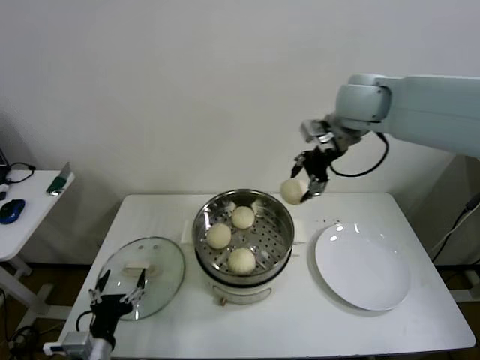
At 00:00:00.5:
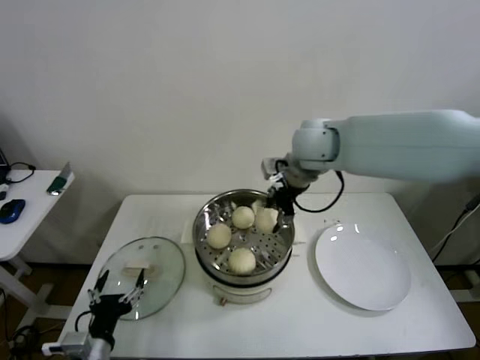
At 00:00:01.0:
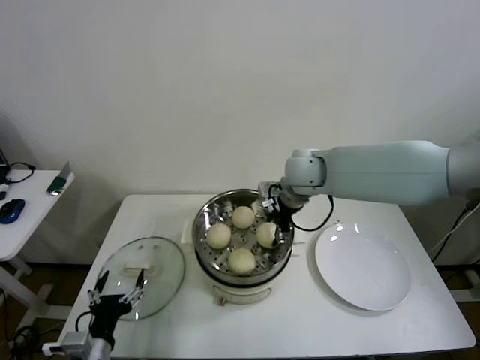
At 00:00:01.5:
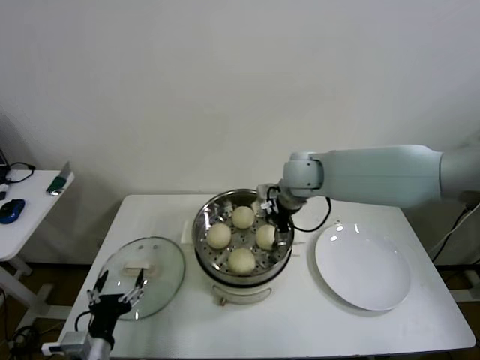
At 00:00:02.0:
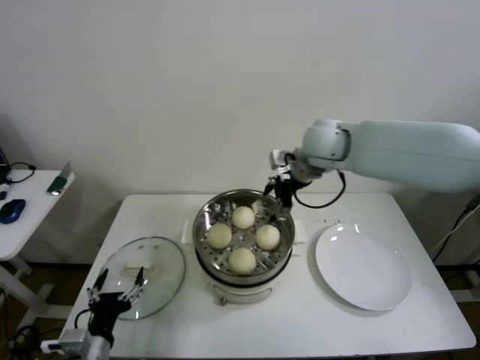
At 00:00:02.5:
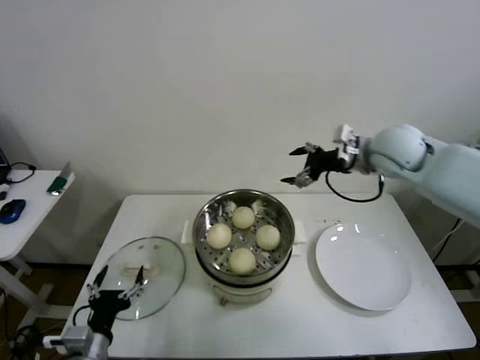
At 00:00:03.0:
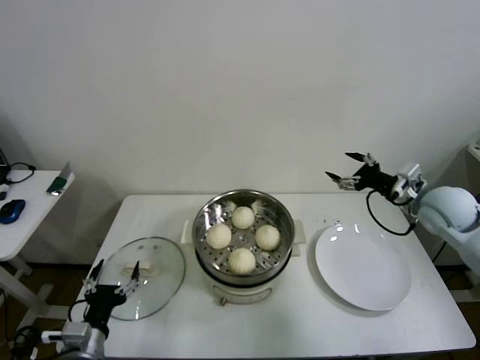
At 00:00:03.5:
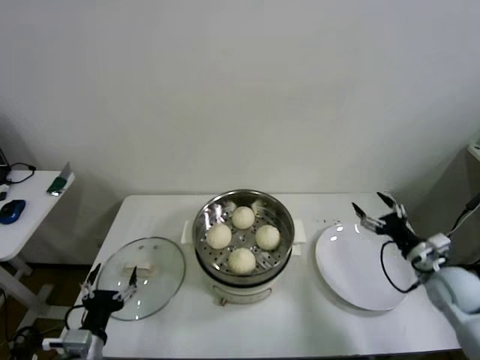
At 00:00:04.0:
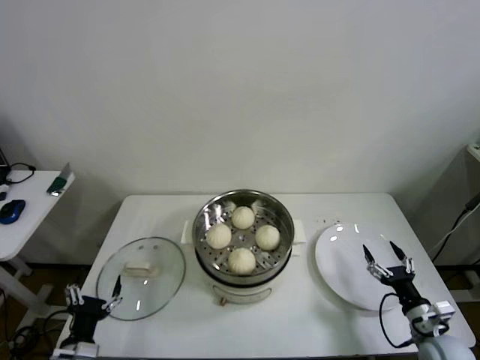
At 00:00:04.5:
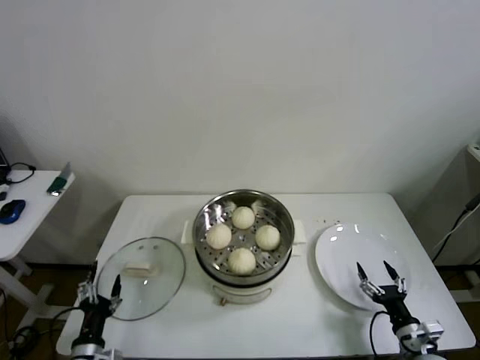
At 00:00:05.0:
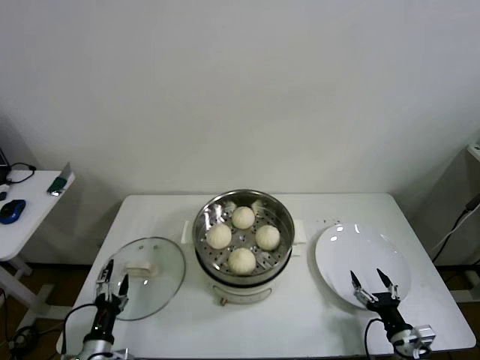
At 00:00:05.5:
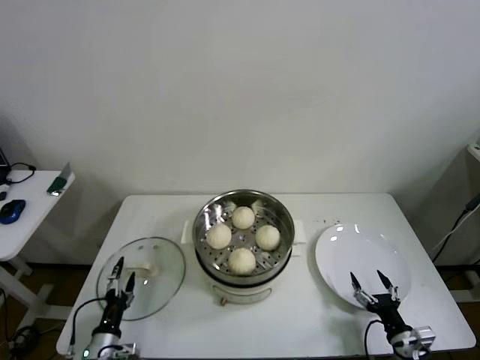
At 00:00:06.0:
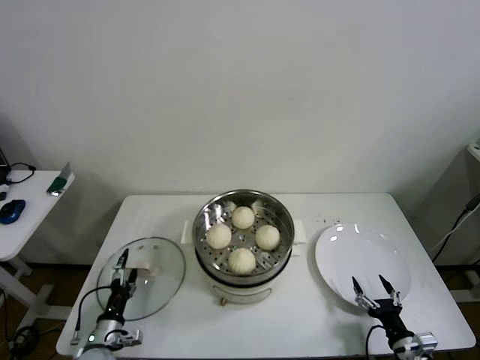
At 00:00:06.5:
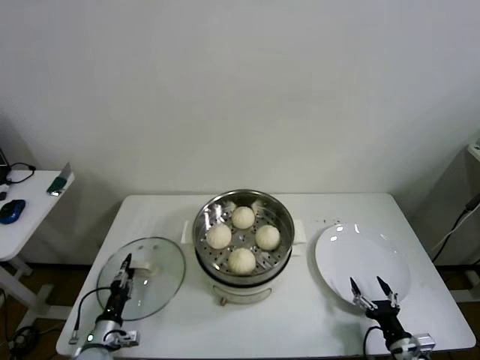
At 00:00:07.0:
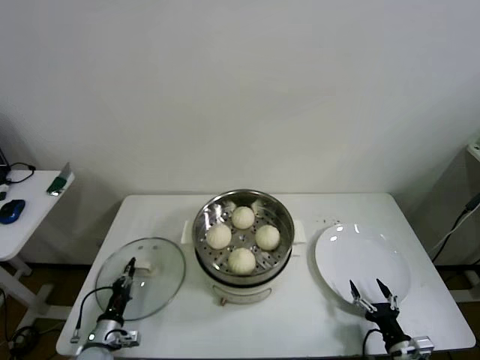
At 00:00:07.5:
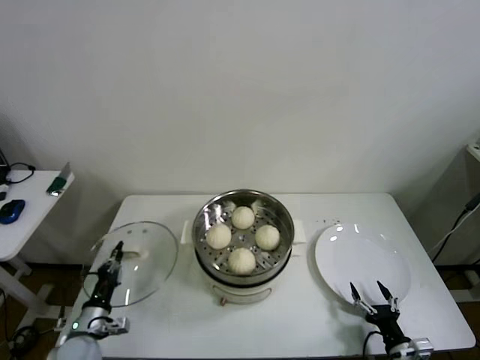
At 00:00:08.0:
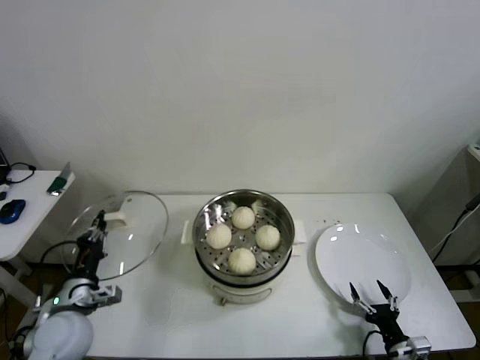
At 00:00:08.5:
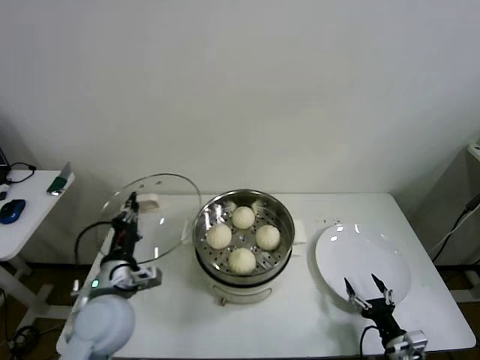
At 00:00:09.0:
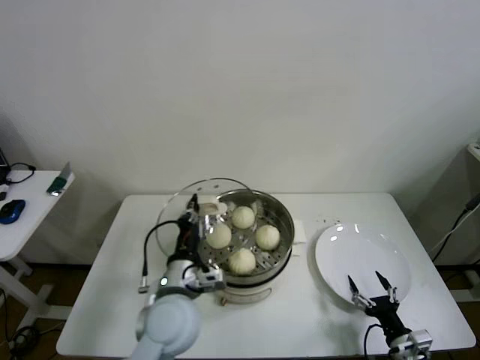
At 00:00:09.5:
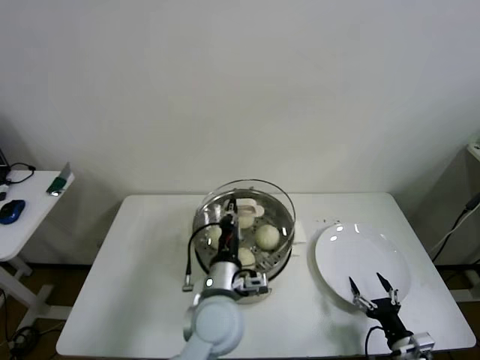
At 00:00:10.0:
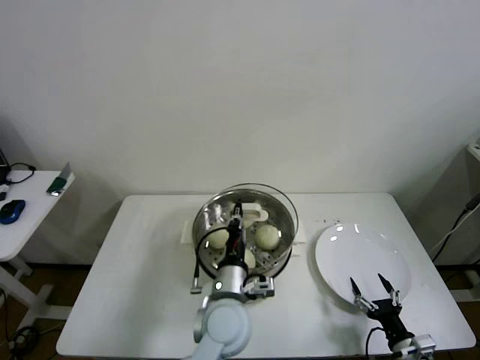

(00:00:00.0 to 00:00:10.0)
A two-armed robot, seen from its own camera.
Step, 00:00:00.0 - 00:00:01.5: Place the baozi on the steamer with right gripper.
Step, 00:00:02.0 - 00:00:06.5: Grasp the pot lid with left gripper.
00:00:00.0 - 00:00:02.0: The right gripper is displaced downward by about 10 cm, and opens its fingers.
00:00:02.0 - 00:00:04.0: The left gripper moves about 5 cm. The right gripper goes approximately 50 cm downward, backward and to the right.
00:00:04.0 - 00:00:06.0: The right gripper moves backward, roughly 5 cm, while the left gripper goes approximately 15 cm downward and forward.
00:00:06.0 - 00:00:08.0: The left gripper goes approximately 15 cm upward, and closes up.
00:00:08.0 - 00:00:10.0: The left gripper moves to the right, approximately 30 cm.

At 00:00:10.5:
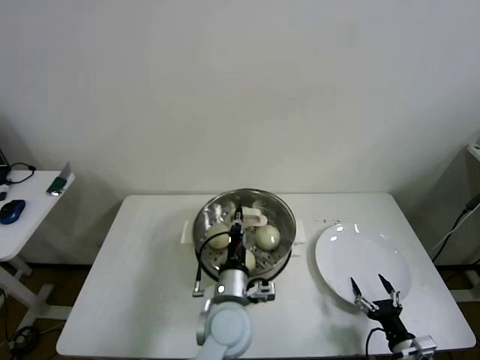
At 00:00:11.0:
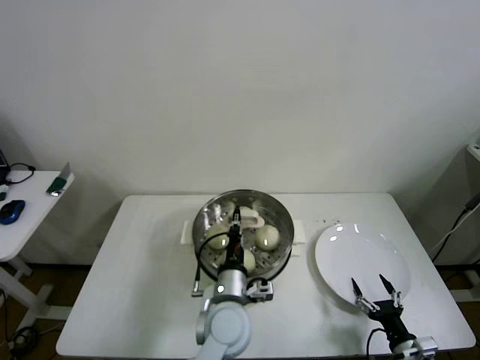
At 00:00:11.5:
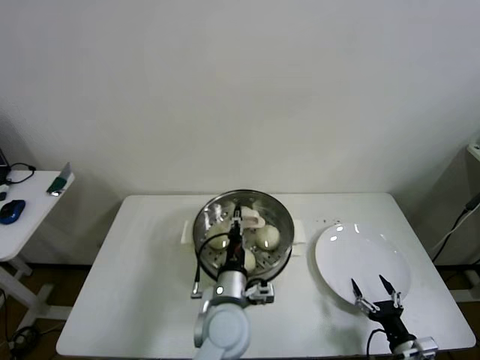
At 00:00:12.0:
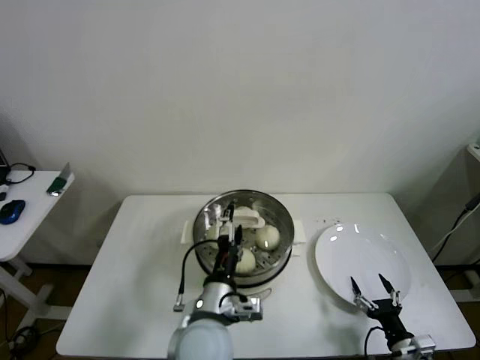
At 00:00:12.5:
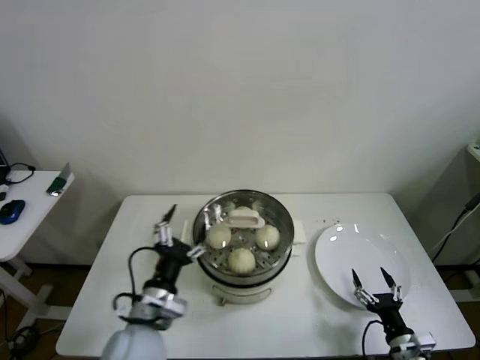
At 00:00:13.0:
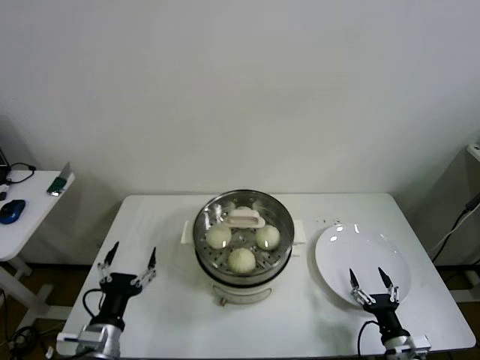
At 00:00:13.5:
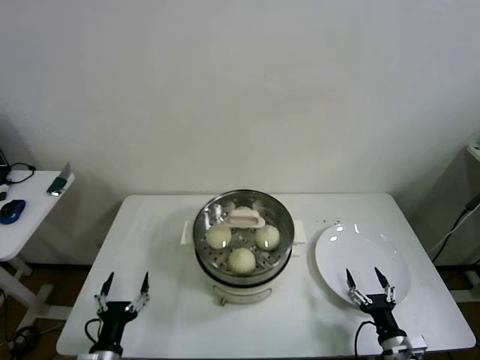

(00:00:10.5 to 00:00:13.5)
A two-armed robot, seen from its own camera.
00:00:10.5 - 00:00:12.0: The left gripper moves some 5 cm, and opens.
00:00:12.0 - 00:00:13.5: The left gripper shifts about 30 cm to the left and downward.

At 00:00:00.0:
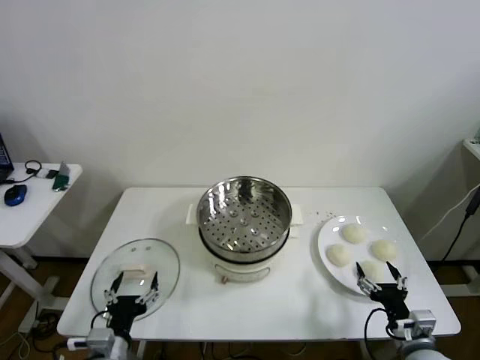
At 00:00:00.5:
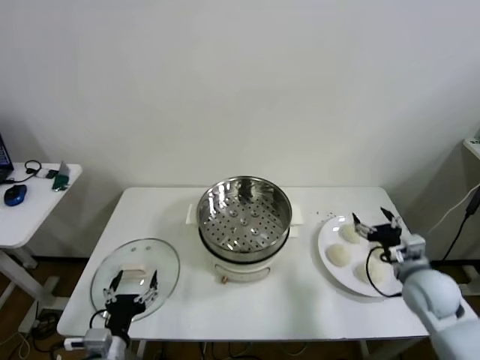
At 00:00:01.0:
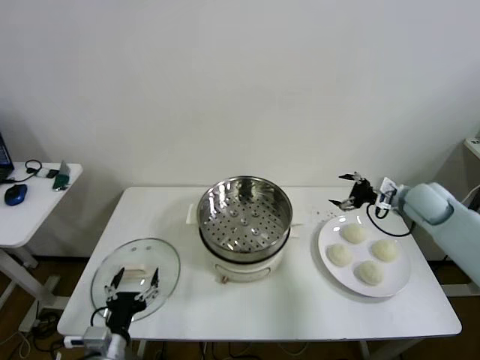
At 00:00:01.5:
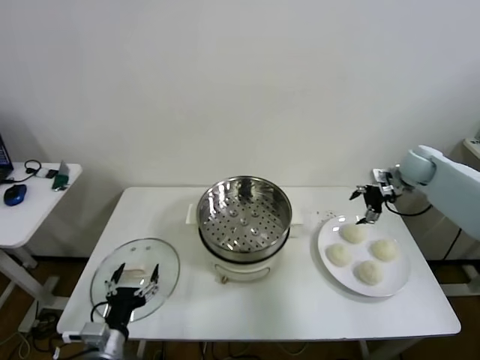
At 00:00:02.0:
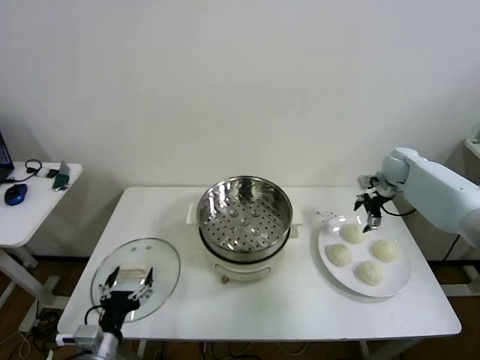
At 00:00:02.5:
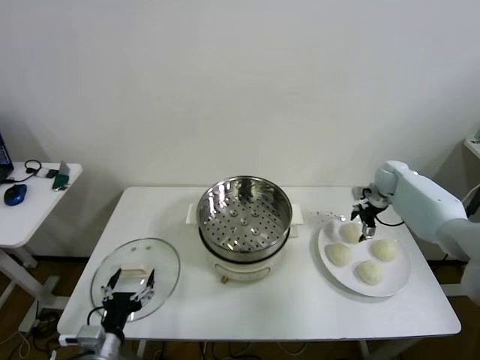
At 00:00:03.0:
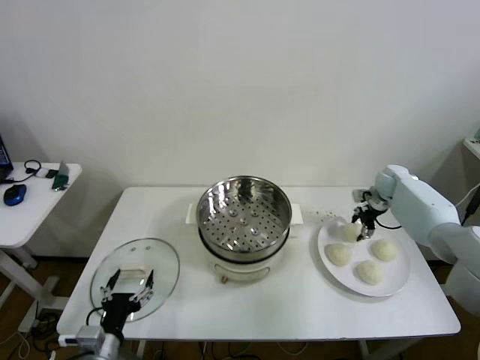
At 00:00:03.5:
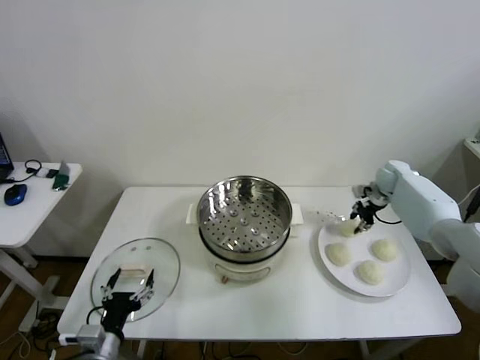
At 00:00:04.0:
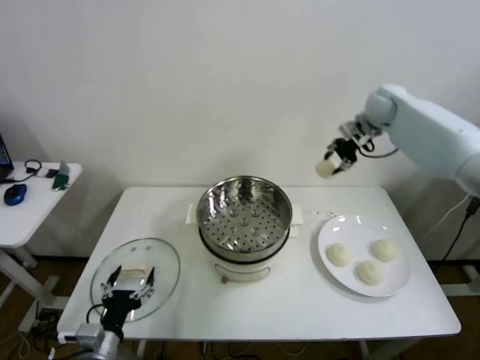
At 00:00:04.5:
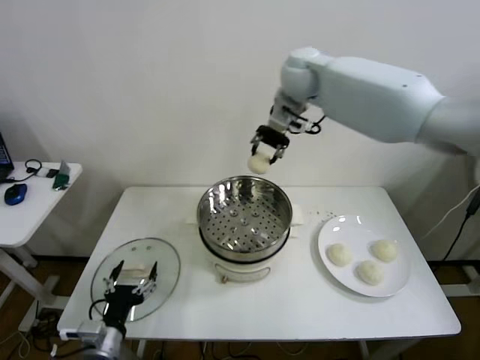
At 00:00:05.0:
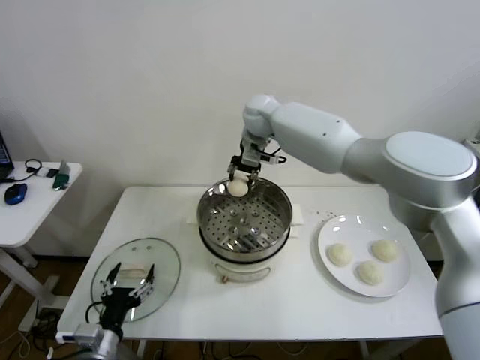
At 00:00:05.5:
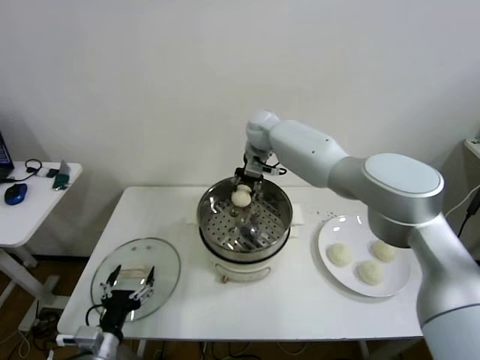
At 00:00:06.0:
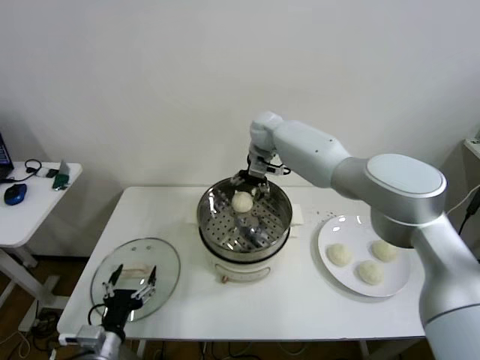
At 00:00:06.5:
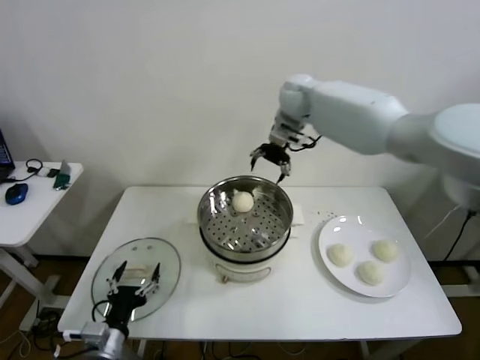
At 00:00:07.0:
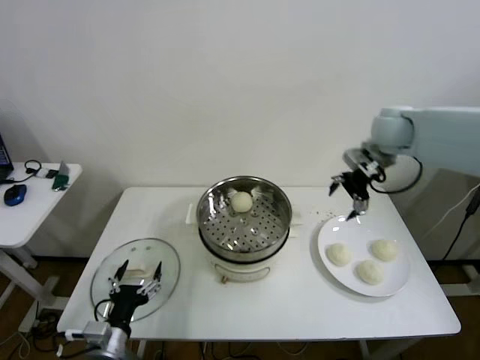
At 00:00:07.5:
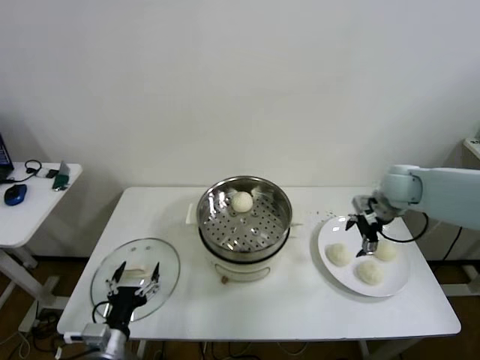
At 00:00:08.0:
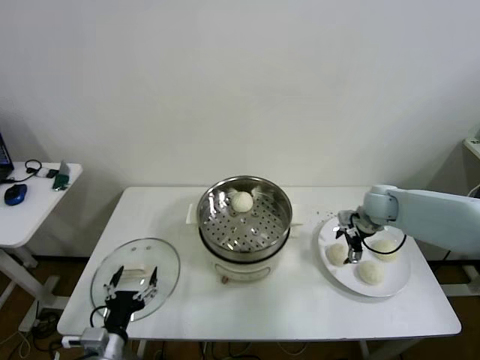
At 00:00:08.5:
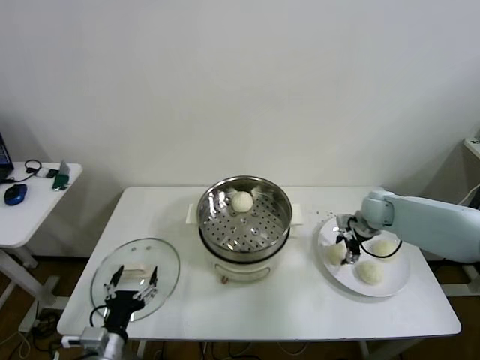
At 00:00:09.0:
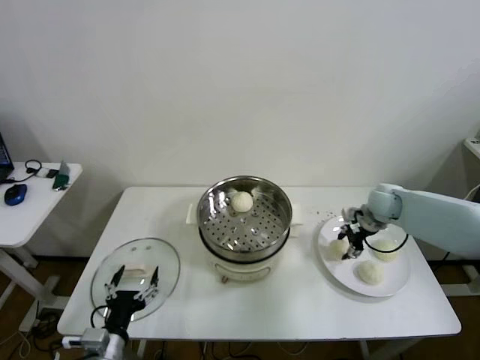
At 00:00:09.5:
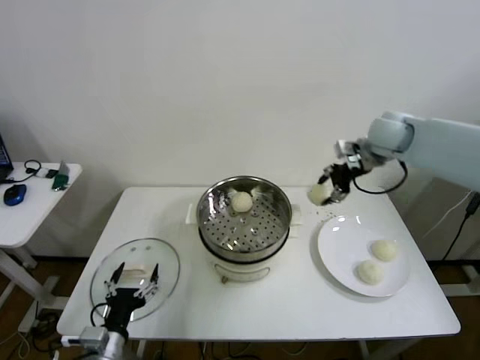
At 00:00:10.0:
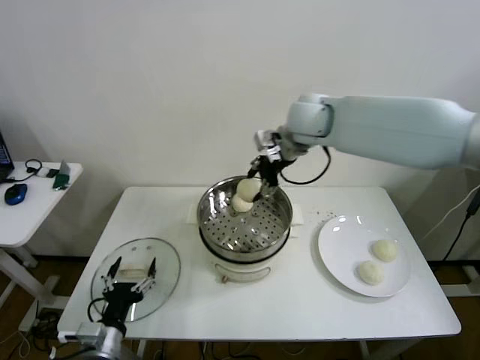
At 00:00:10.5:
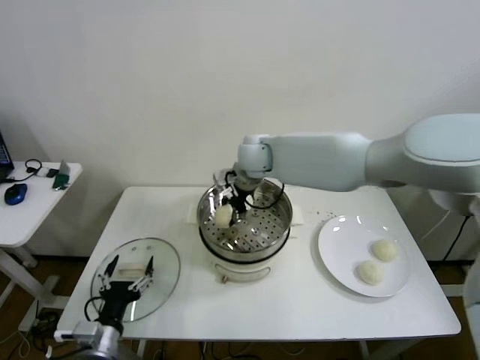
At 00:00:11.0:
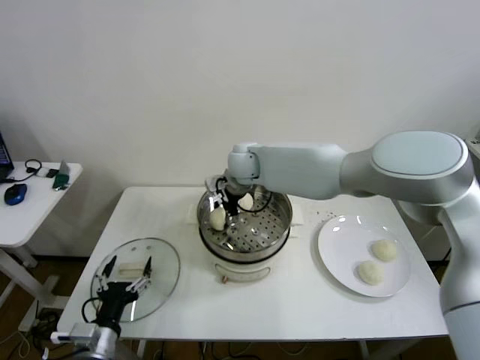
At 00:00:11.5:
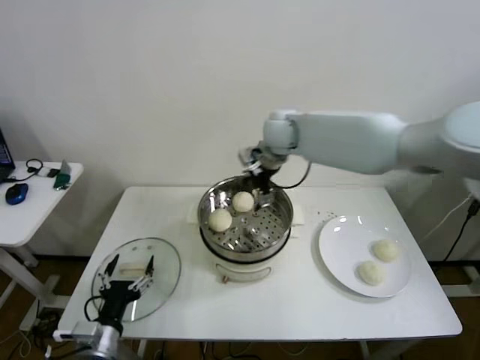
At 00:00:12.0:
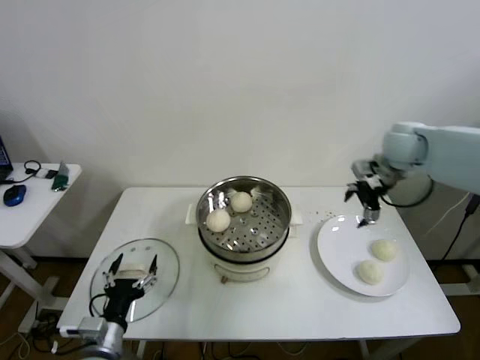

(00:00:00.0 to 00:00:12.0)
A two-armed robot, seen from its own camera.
Step, 00:00:00.0 - 00:00:03.0: Grasp the baozi in the plate with right gripper.
Step, 00:00:03.5 - 00:00:06.0: Place the baozi on the steamer with right gripper.
Step, 00:00:06.5 - 00:00:08.5: Grasp the baozi in the plate with right gripper.
Step, 00:00:09.0 - 00:00:11.0: Place the baozi on the steamer with right gripper.
00:00:02.0 - 00:00:04.0: The right gripper moves upward and to the left, roughly 25 cm, and closes its fingers.
00:00:04.0 - 00:00:06.0: The right gripper heads to the left and downward, covering about 25 cm, and opens its fingers.
00:00:06.0 - 00:00:08.0: The right gripper heads to the right, downward and backward, covering roughly 35 cm.
00:00:08.0 - 00:00:10.0: The right gripper shifts about 35 cm to the left and upward, and closes its fingers.
00:00:10.0 - 00:00:12.0: The right gripper shifts roughly 25 cm to the right, and opens its fingers.
